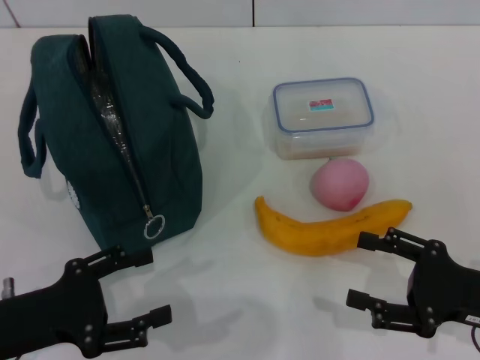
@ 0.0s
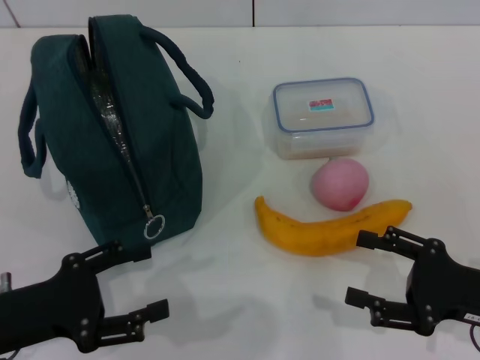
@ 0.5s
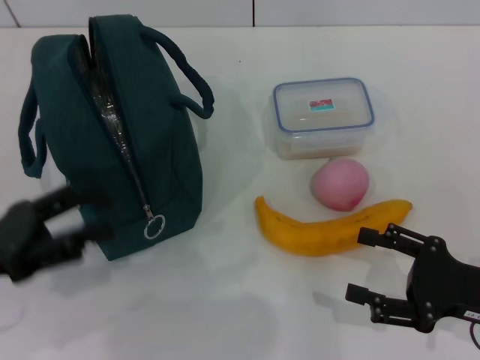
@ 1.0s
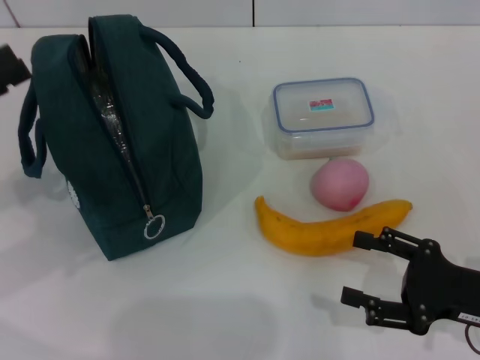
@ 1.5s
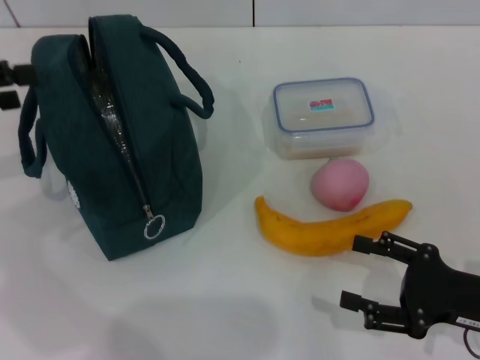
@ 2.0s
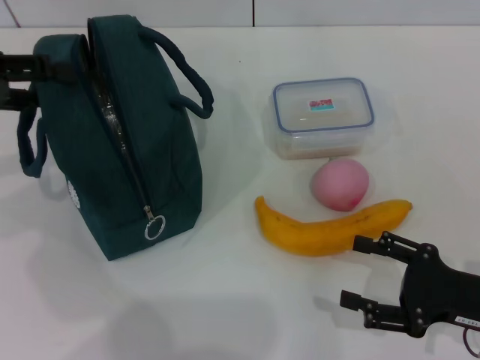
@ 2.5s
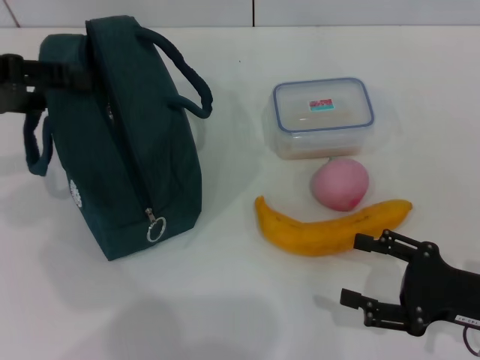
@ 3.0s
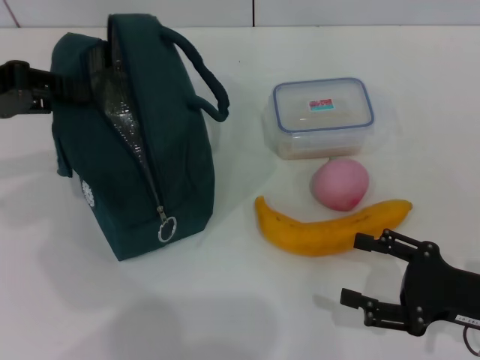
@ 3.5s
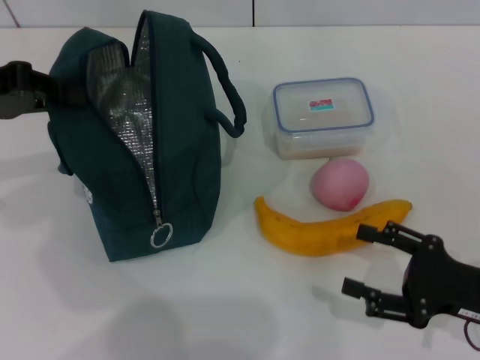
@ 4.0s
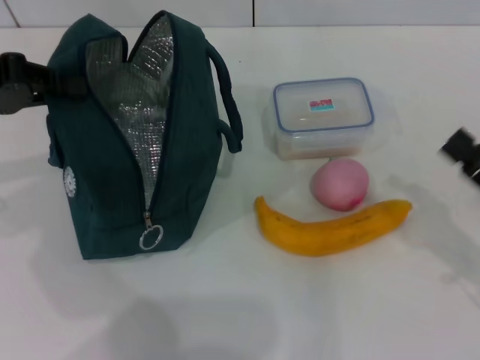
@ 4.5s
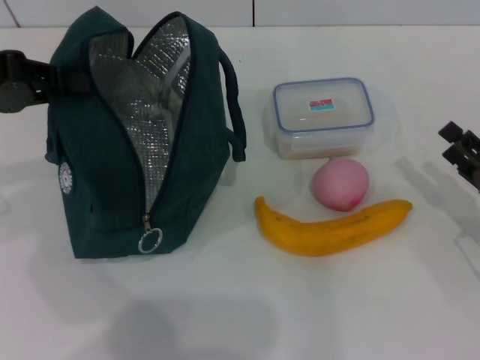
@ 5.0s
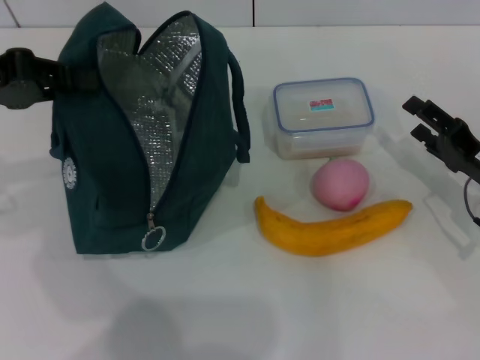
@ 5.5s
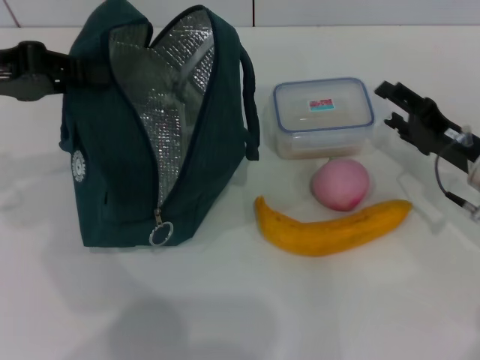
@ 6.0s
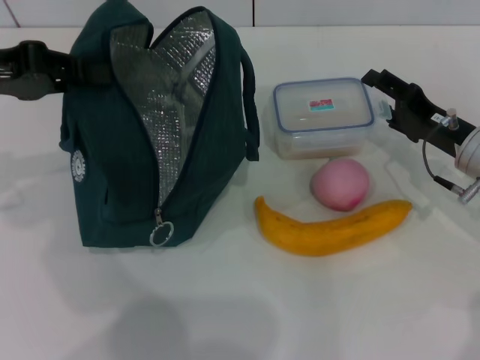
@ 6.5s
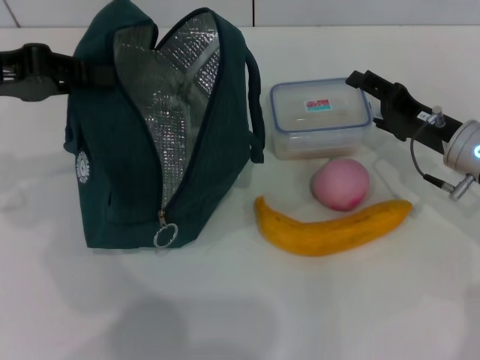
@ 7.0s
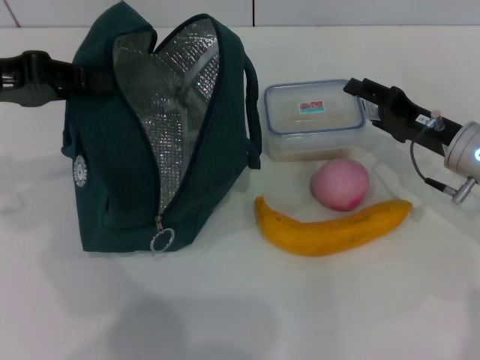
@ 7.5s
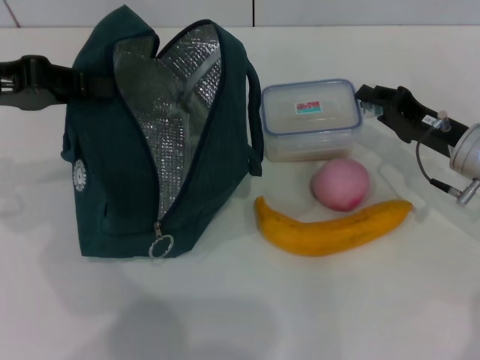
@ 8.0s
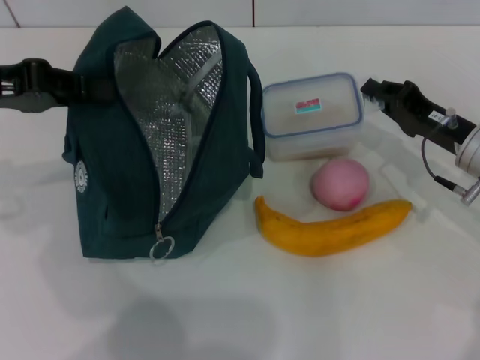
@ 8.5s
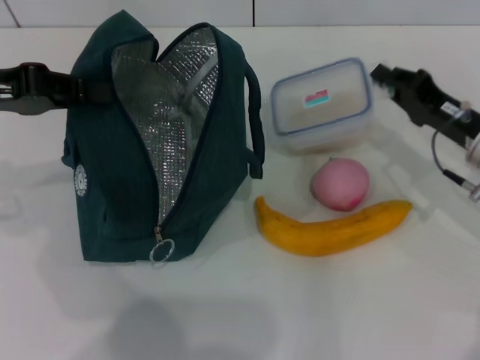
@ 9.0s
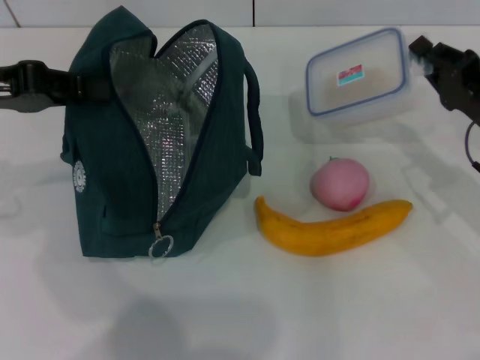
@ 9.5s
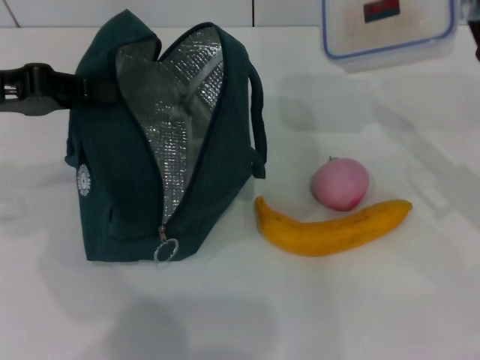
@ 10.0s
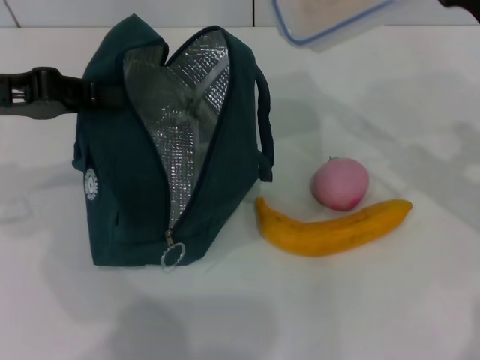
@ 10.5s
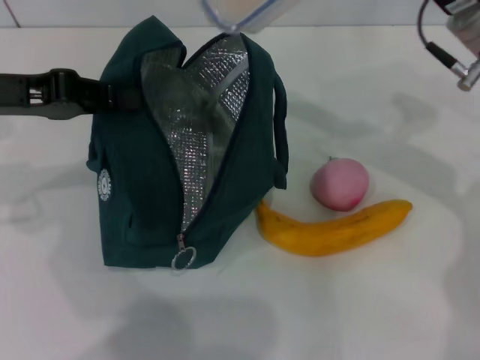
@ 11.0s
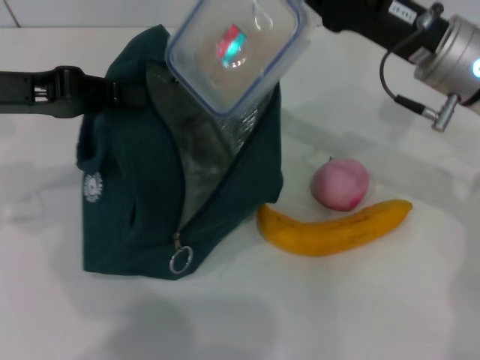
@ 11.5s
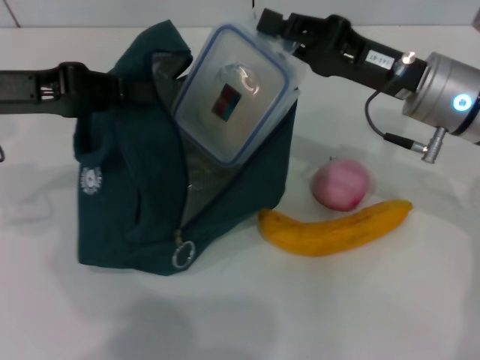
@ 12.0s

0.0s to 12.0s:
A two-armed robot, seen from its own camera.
Step, 0.0s to 4.5s: Hold the lunch bag with your left hand.
Step, 5.0s to 9.0s: Pick up the lunch box with your right hand.
0.0s to 2.0s: The left gripper moves upward, forward and to the left, roughly 20 cm.
2.0s to 4.0s: The left gripper changes place by about 5 cm, and closes up.
4.0s to 6.0s: The right gripper is displaced forward by about 15 cm.
6.0s to 8.0s: The right gripper closes.
8.0s to 10.0s: The right gripper travels upward by roughly 5 cm.
10.0s to 12.0s: The right gripper travels to the left by some 10 cm.

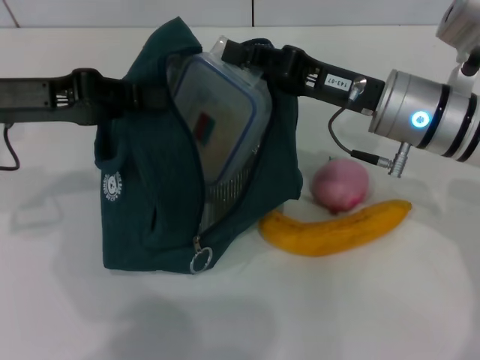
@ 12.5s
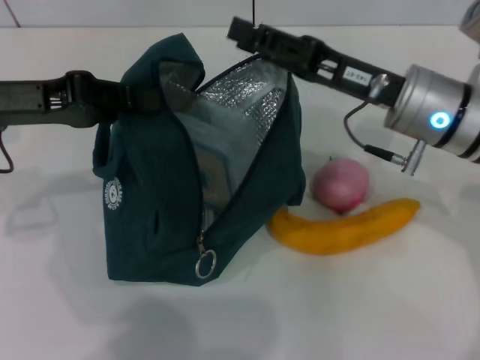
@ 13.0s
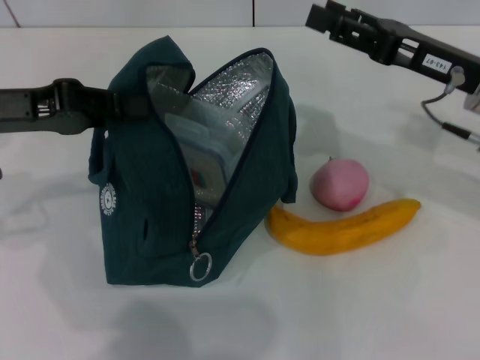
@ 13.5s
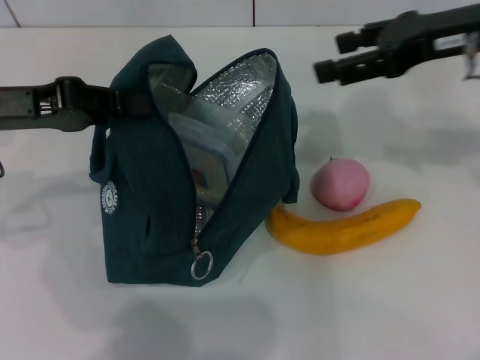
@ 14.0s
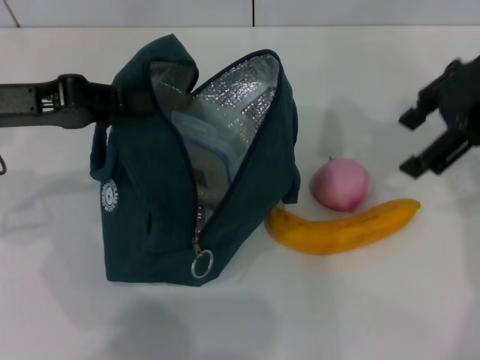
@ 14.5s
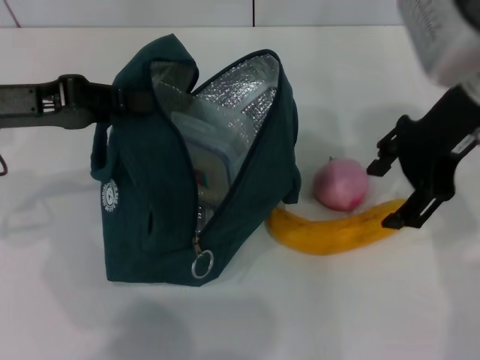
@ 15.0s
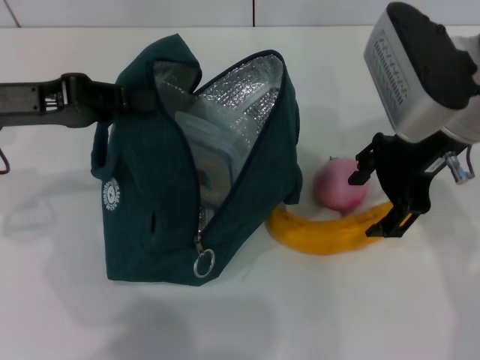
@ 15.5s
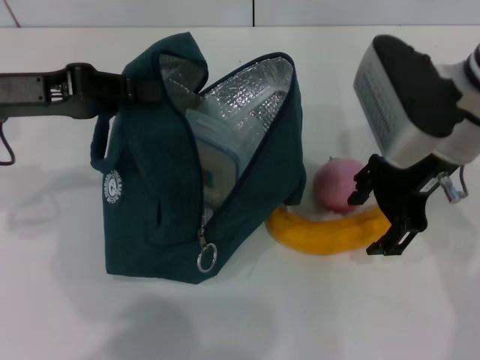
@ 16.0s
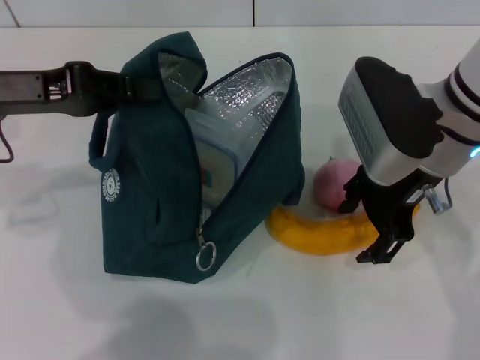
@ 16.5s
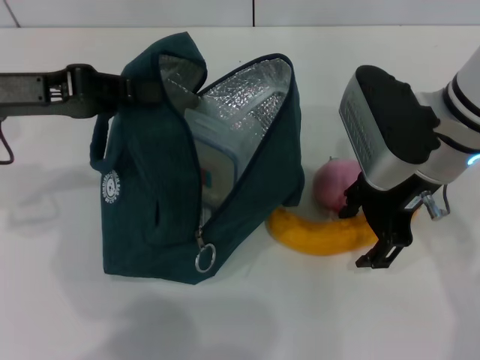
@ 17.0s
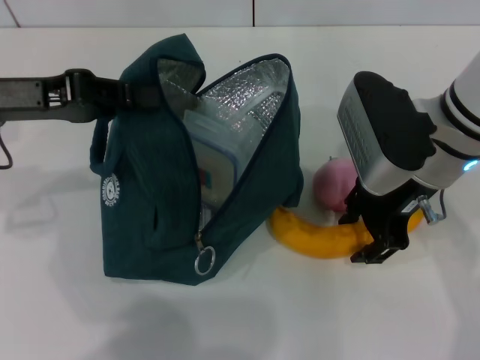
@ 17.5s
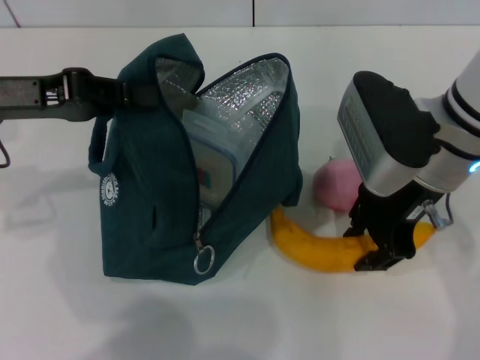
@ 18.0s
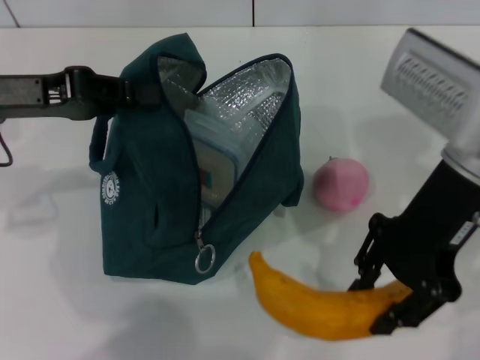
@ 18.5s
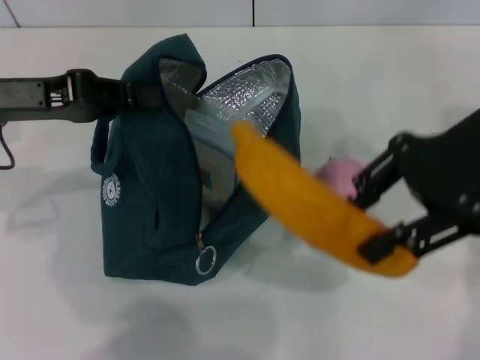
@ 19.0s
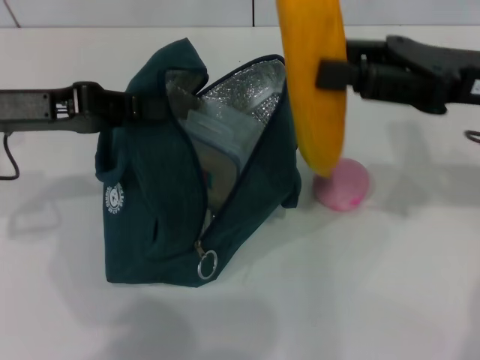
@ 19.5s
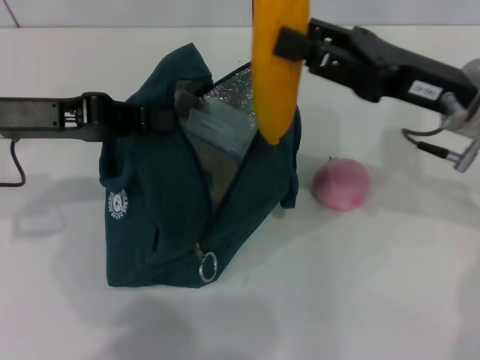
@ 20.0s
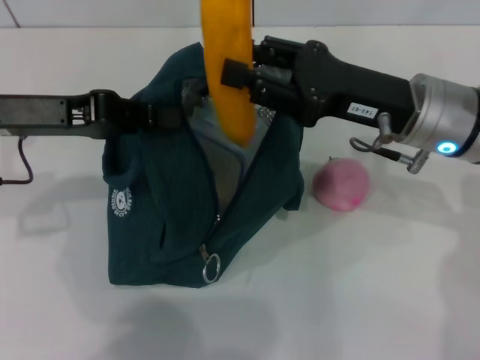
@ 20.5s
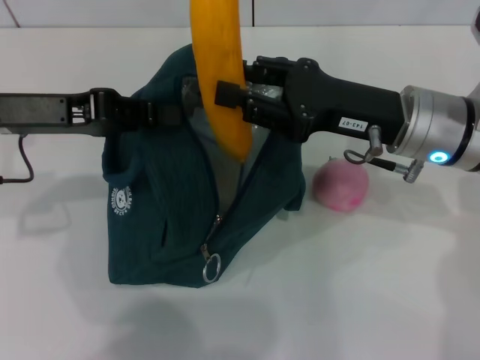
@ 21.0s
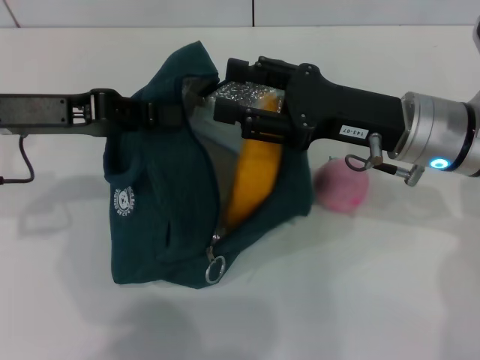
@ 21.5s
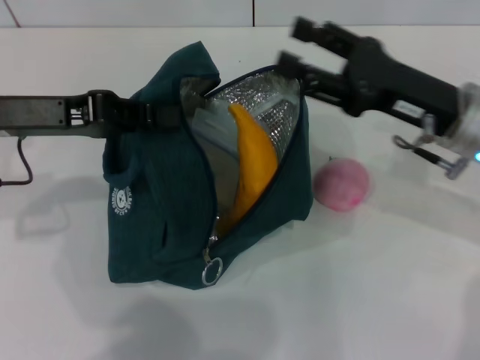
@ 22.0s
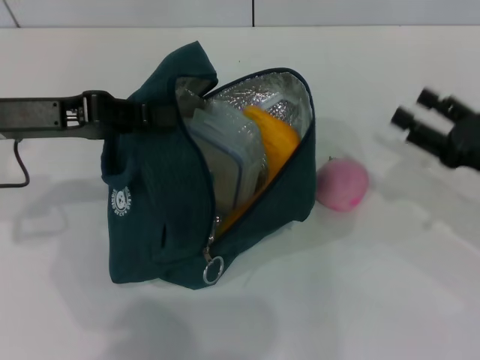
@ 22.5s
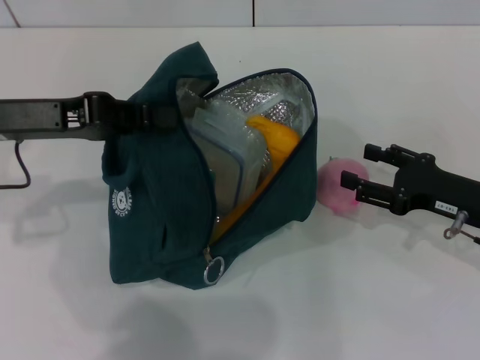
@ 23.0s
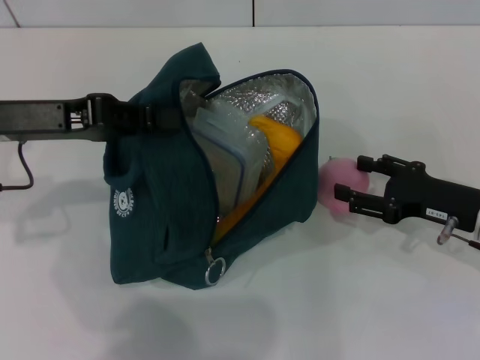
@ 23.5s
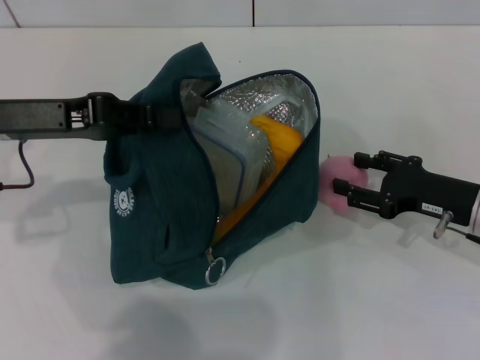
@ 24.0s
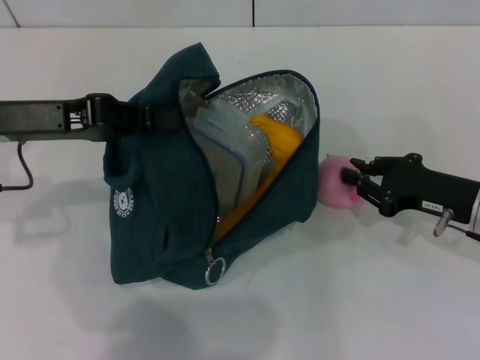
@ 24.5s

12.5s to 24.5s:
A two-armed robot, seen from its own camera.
Step, 13.5s to 17.5s: Take the banana with your right hand.
Step, 18.0s to 21.5s: Put the banana into the lunch bag with your right hand.
Step, 22.5s to 24.0s: Grab the peach with your right hand.
12.5s to 14.5s: The right gripper shifts some 15 cm upward and to the right, and opens up.
14.5s to 16.5s: The right gripper travels downward and to the left by approximately 15 cm.
16.5s to 18.5s: The right gripper moves some 5 cm, and closes its fingers.
18.5s to 20.5s: The right gripper travels downward by some 5 cm.
20.5s to 22.5s: The right gripper shifts approximately 15 cm to the right and downward, and opens its fingers.
22.5s to 24.5s: The right gripper closes.

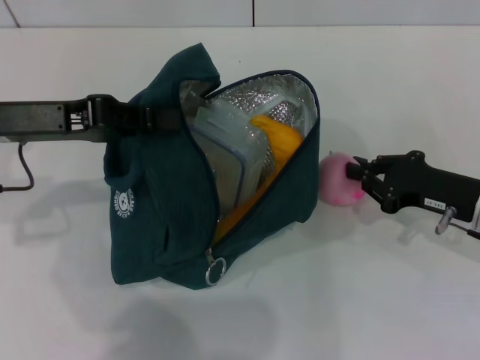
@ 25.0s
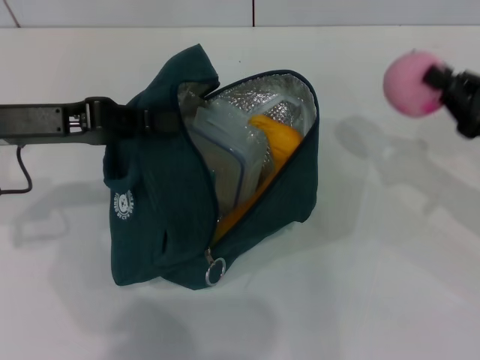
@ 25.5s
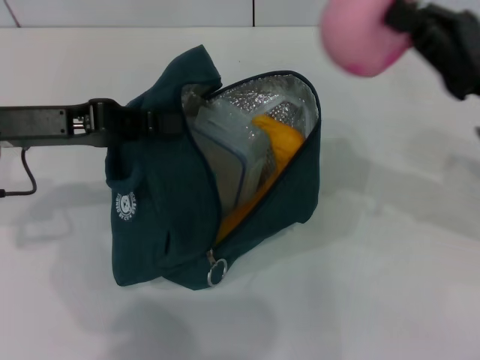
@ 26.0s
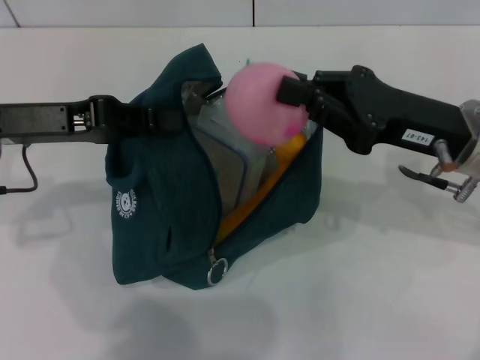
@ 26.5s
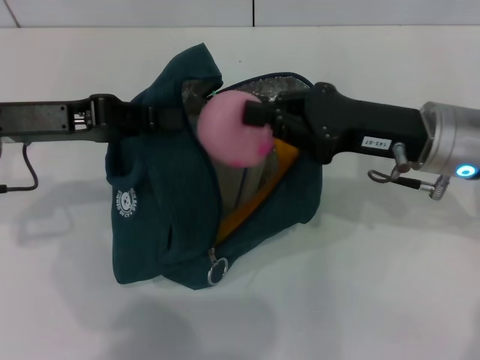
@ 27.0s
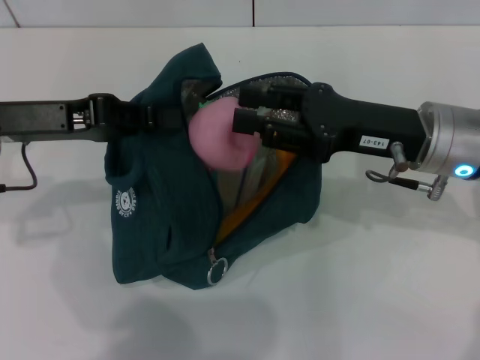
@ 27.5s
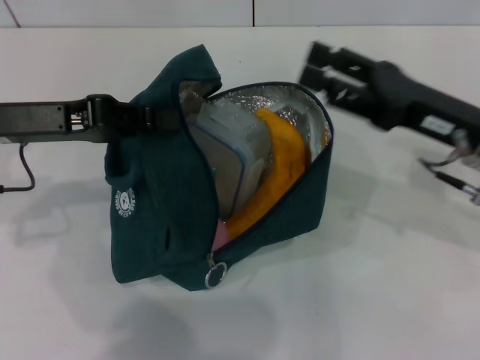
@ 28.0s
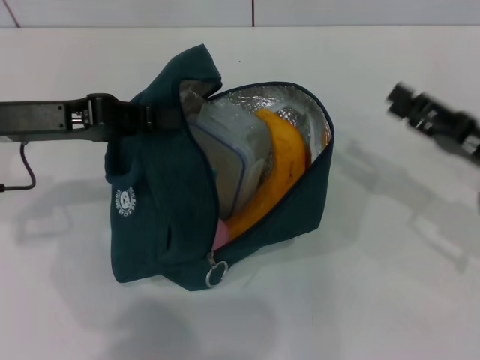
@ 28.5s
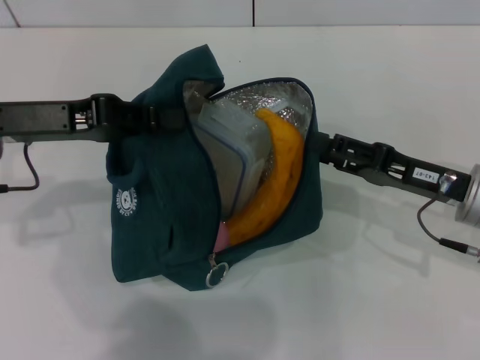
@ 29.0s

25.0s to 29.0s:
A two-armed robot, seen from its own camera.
25.0s to 27.0s: The right gripper goes about 10 cm upward and to the left.
27.0s to 29.0s: The right gripper moves downward and to the right, about 10 cm, and opens.
